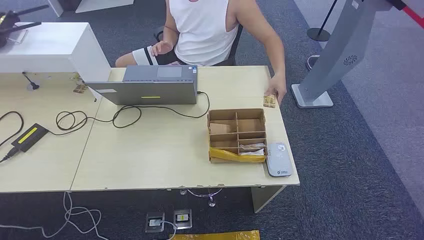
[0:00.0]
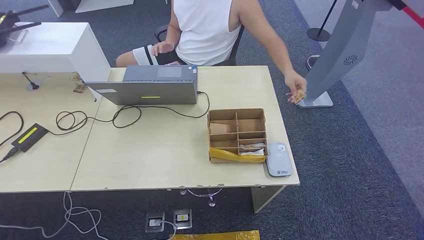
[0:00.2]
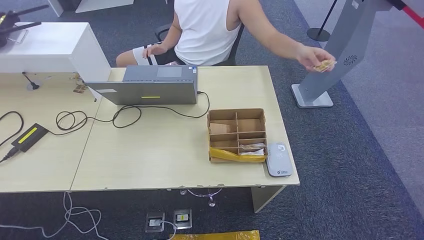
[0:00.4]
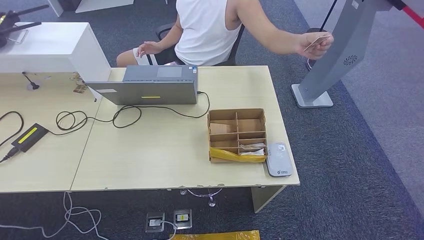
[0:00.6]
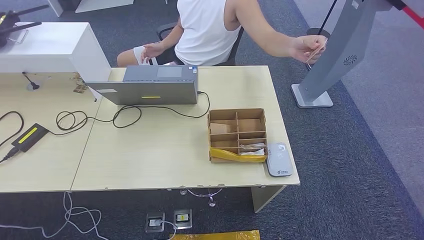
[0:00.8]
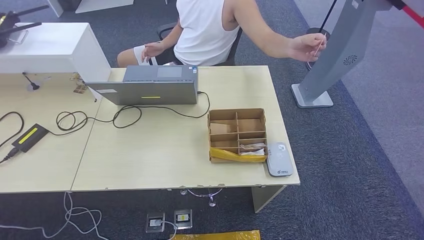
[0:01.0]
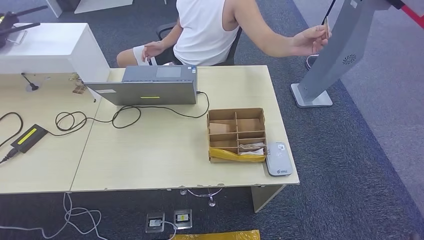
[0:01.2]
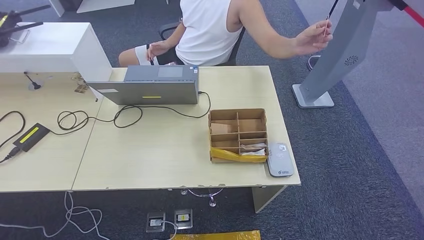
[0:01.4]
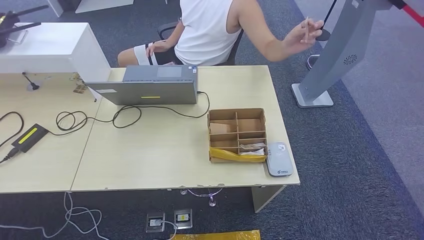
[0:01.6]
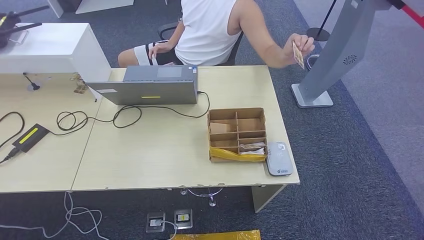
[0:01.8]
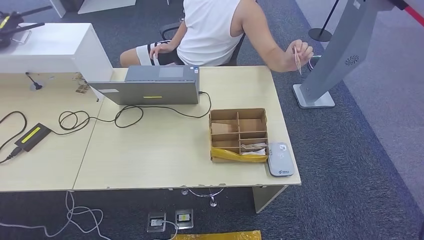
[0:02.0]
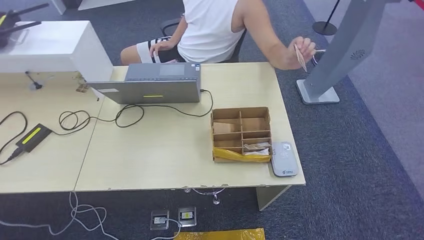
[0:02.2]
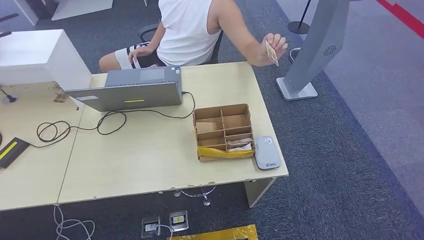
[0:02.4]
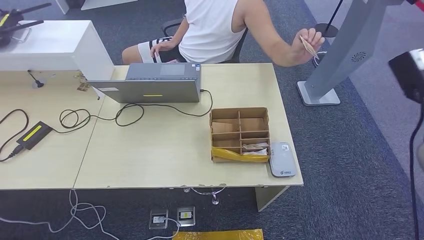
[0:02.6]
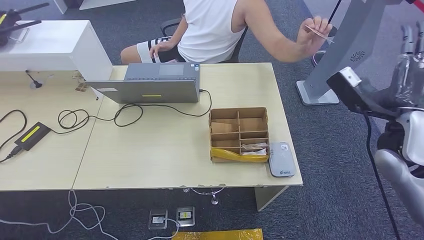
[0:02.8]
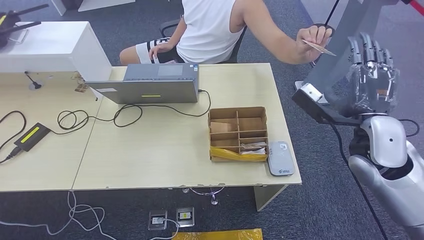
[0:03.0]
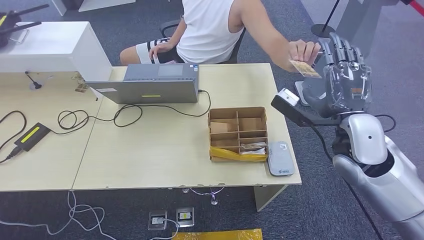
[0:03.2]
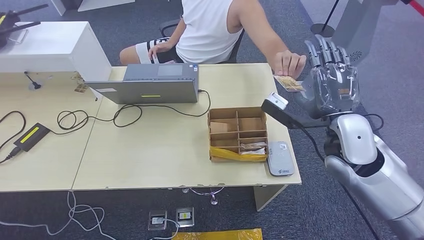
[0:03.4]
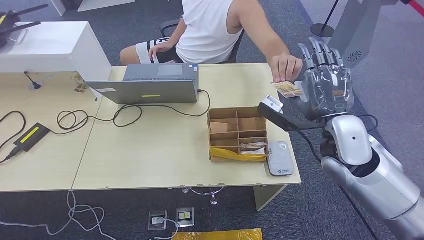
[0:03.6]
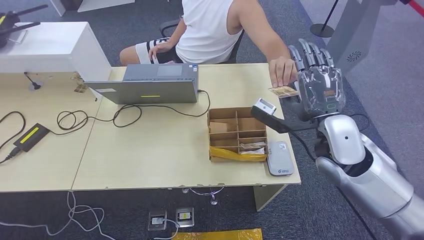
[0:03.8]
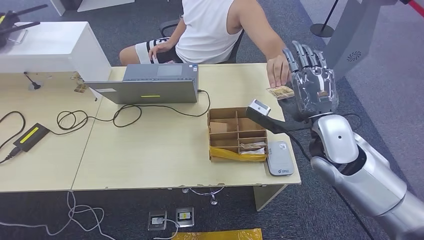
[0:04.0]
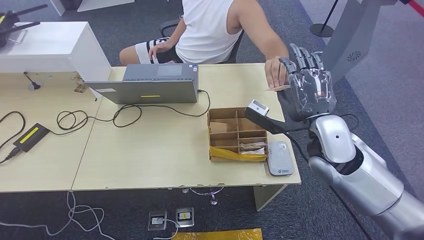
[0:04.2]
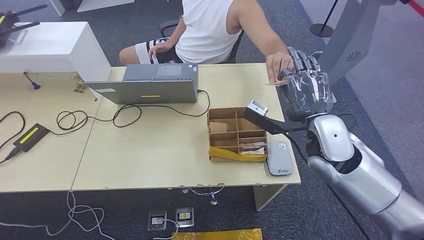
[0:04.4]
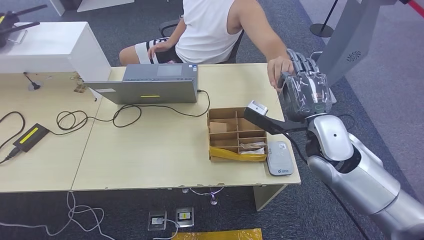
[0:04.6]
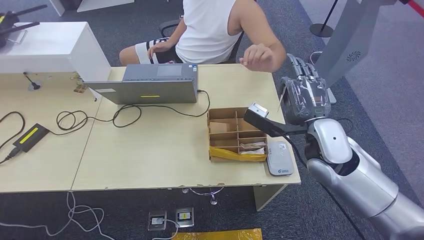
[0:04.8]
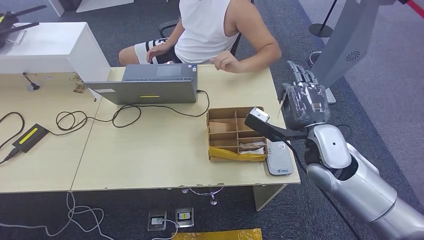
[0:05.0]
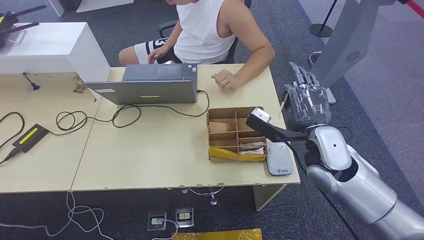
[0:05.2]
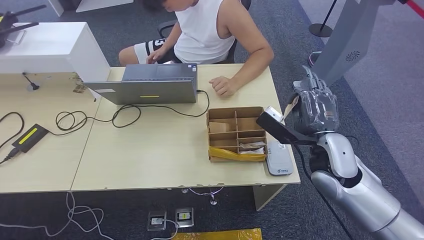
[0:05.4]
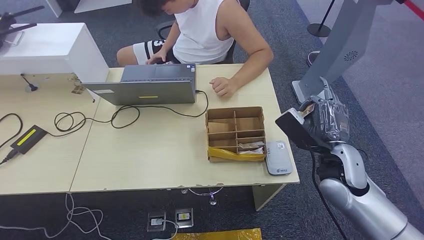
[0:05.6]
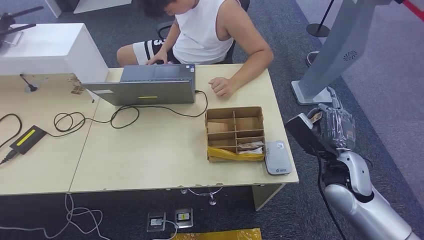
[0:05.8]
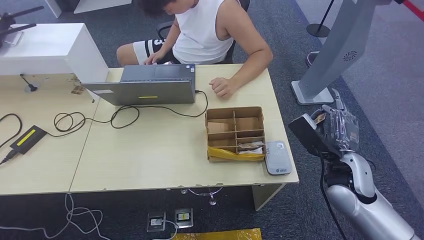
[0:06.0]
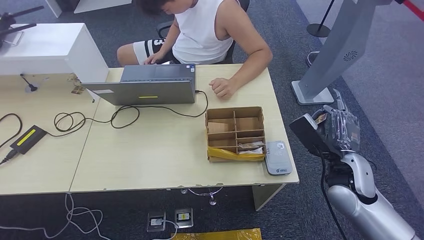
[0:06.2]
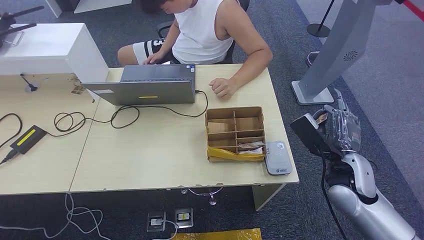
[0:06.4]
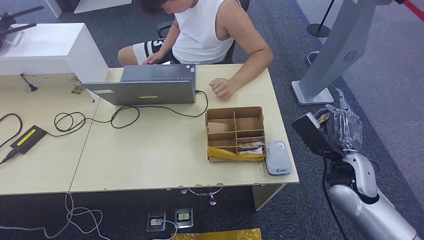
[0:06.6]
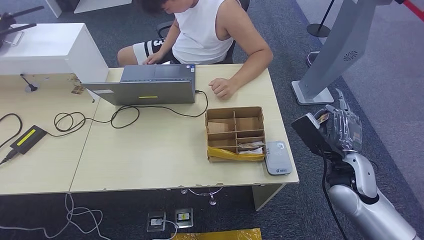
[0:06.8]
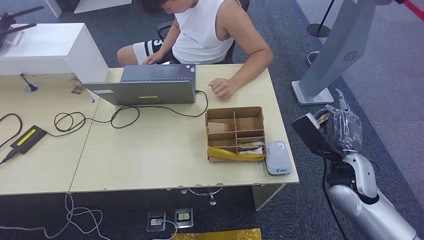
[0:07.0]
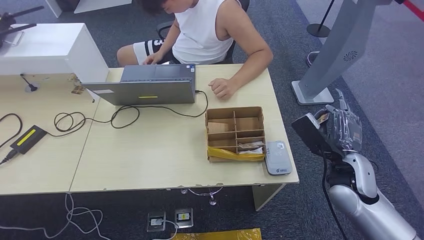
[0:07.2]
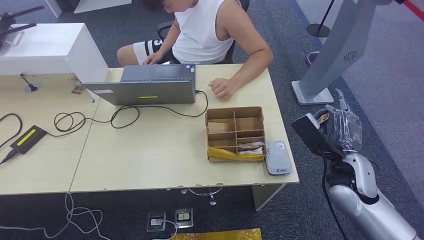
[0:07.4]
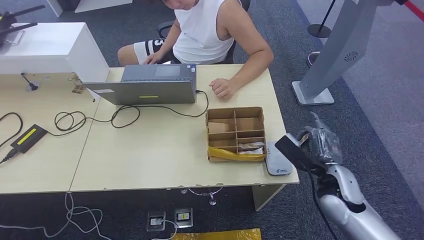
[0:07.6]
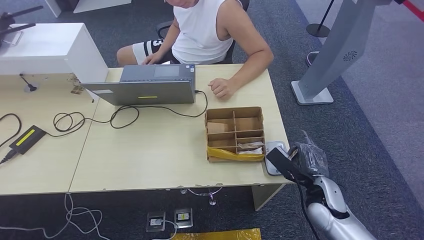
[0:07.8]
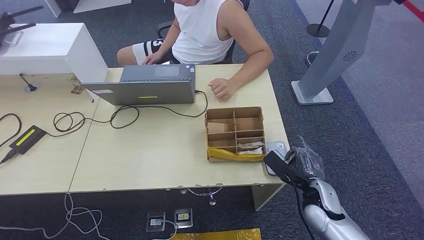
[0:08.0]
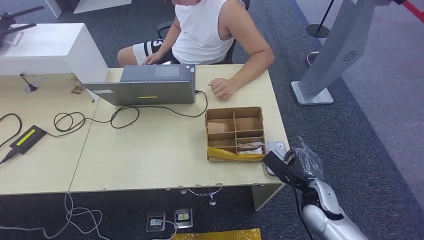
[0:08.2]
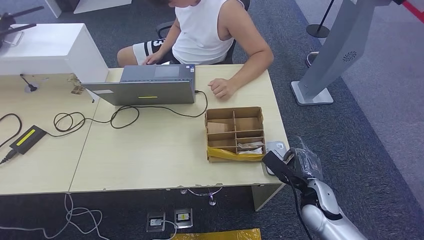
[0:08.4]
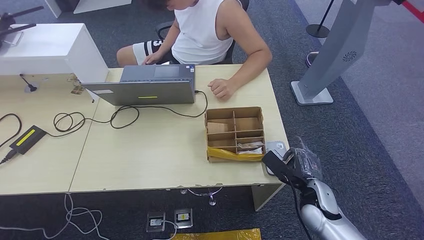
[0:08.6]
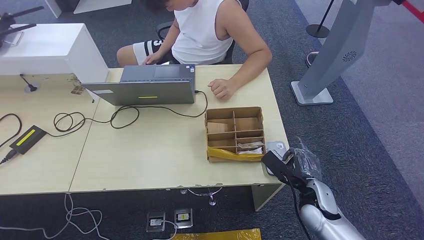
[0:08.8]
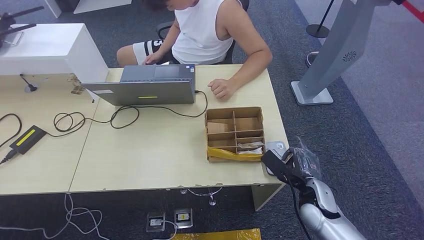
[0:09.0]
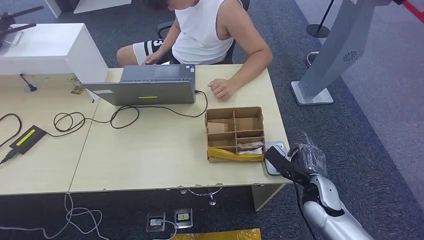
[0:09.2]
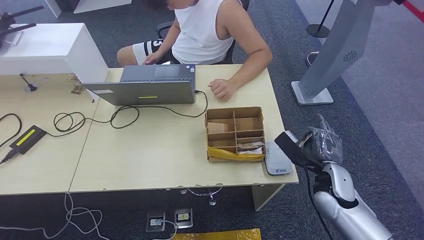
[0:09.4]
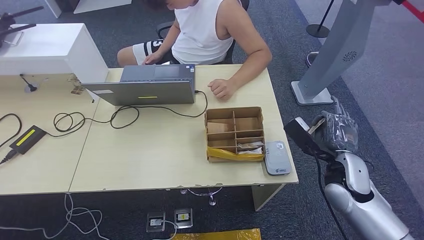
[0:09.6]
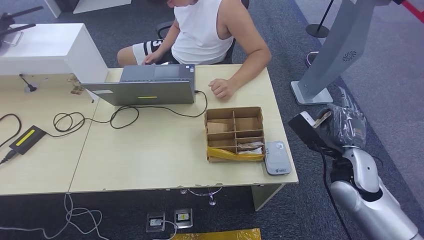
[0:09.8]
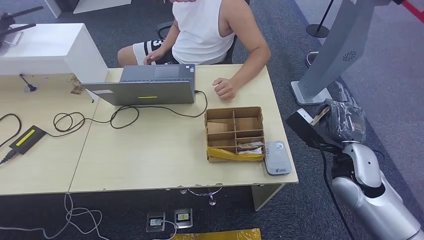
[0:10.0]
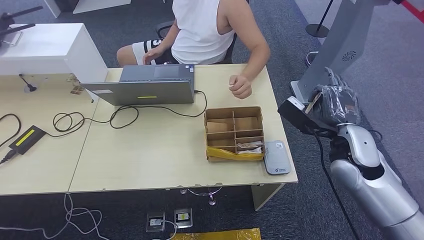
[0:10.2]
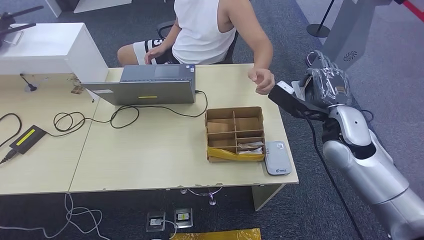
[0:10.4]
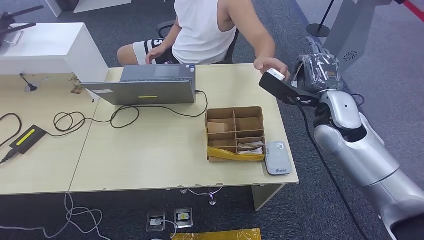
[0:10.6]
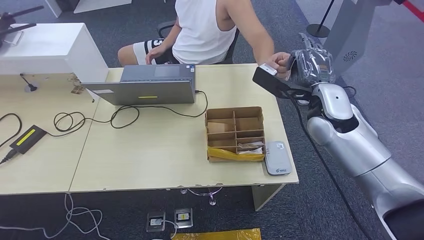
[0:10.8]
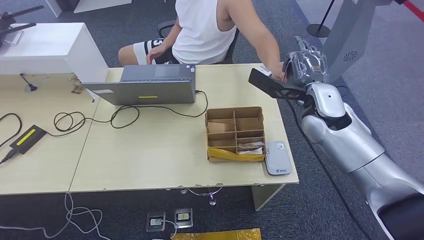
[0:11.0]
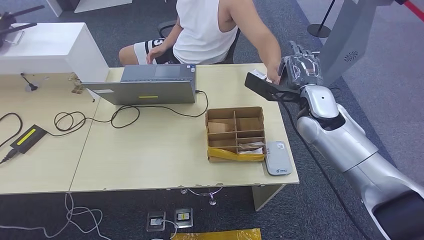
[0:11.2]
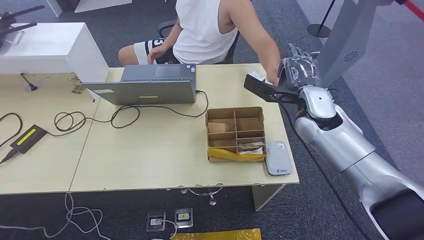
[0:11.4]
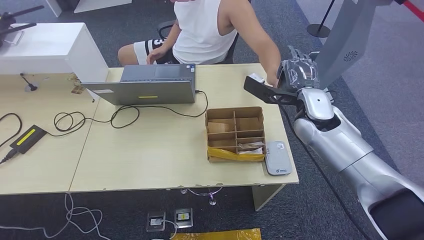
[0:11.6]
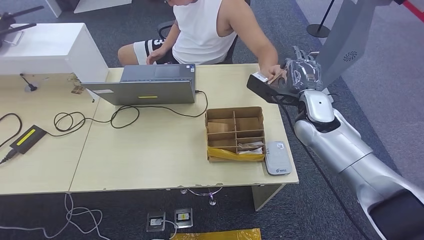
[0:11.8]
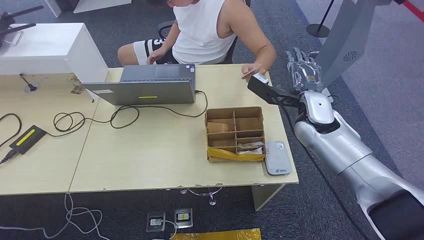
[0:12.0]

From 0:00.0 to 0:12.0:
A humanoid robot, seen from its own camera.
Step, from 0:00.0 to 0:04.6: Take the ID card from the person's hand.
Step, from 0:05.6 to 0:09.2: Place the ID card on the card reader.
From 0:01.6 to 0:03.0: The right hand moves to the left, upward and forward, about 40 cm.
From 0:03.0 to 0:04.4: The right hand is displaced to the left by some 10 cm.
From 0:06.0 to 0:07.6: The hands move only a little.
From 0:07.6 to 0:09.0: The right hand shifts approximately 10 cm downward.
From 0:09.0 to 0:10.4: The right hand travels upward and forward by roughly 20 cm.
From 0:10.4 to 0:12.0: The right hand moves forward and to the left, about 10 cm.

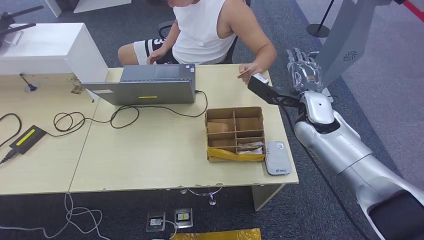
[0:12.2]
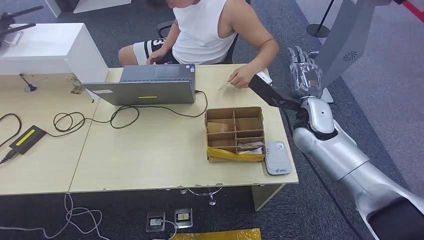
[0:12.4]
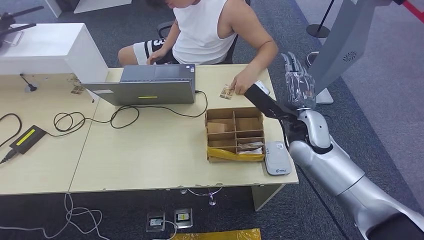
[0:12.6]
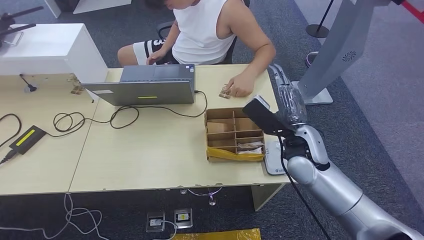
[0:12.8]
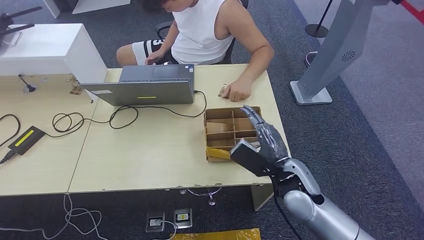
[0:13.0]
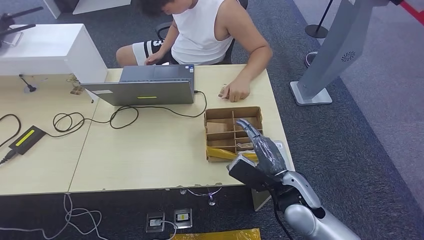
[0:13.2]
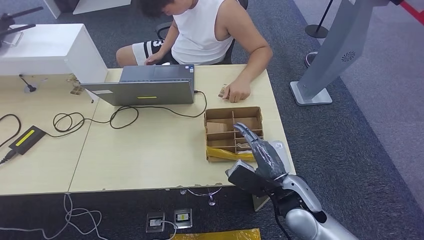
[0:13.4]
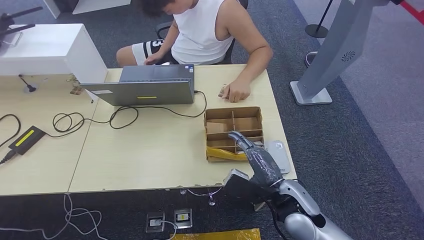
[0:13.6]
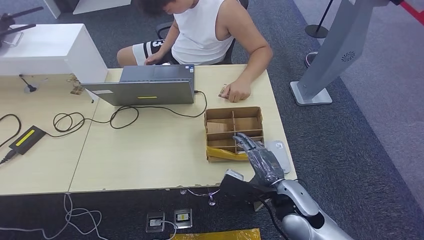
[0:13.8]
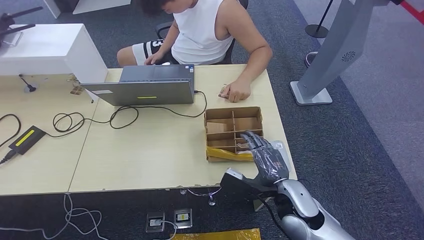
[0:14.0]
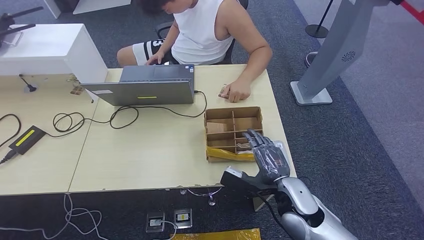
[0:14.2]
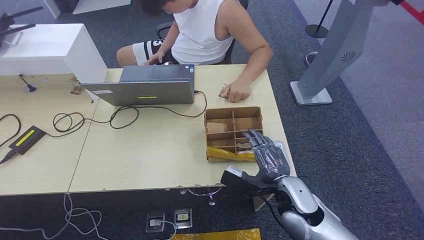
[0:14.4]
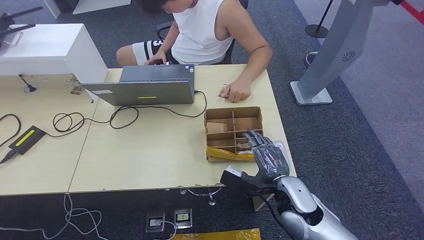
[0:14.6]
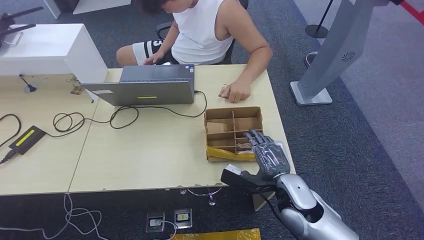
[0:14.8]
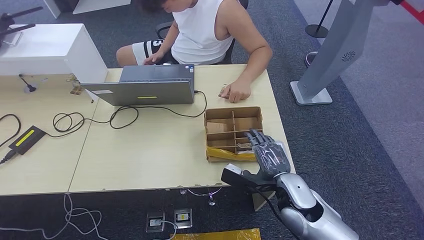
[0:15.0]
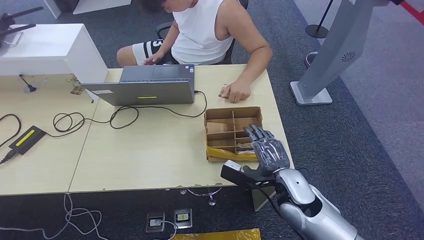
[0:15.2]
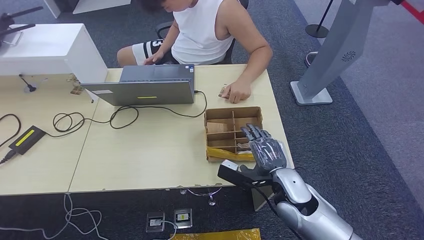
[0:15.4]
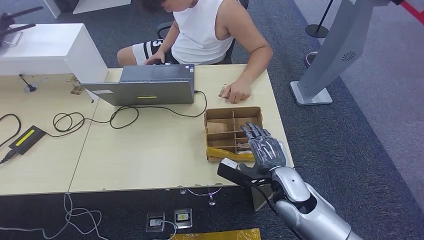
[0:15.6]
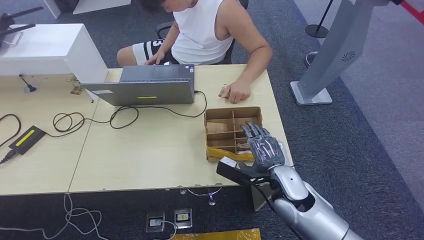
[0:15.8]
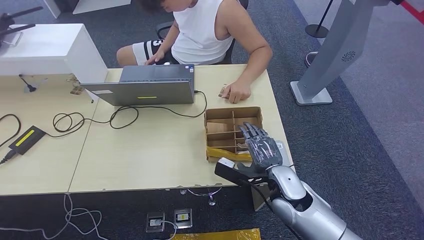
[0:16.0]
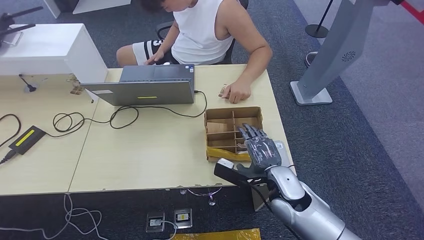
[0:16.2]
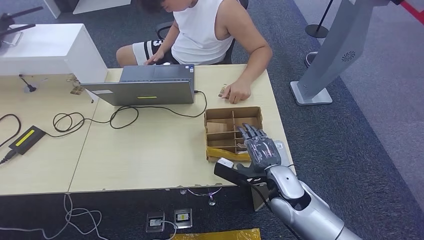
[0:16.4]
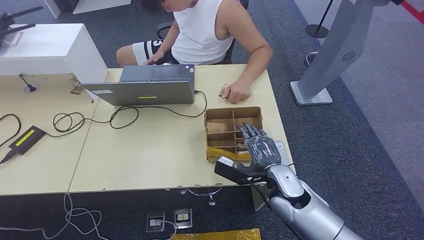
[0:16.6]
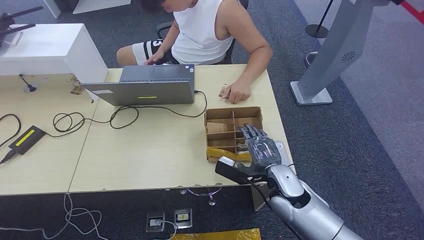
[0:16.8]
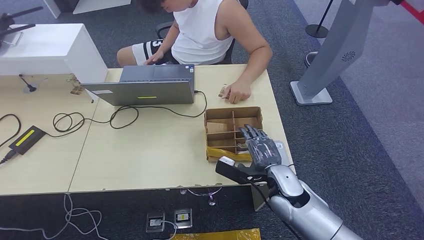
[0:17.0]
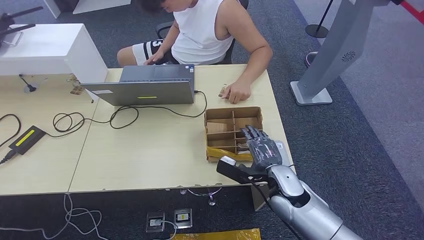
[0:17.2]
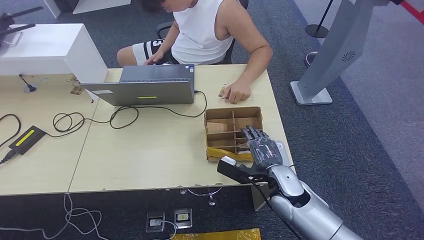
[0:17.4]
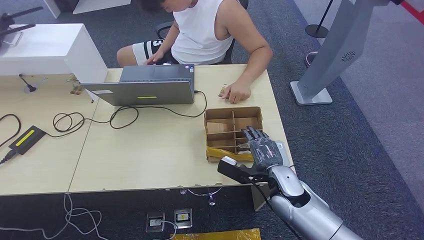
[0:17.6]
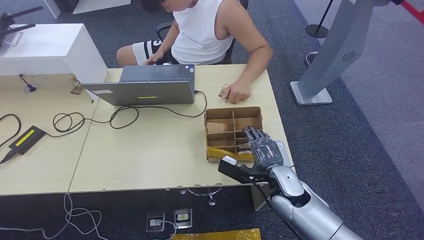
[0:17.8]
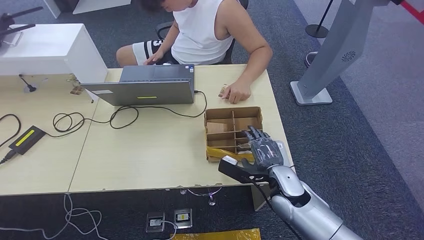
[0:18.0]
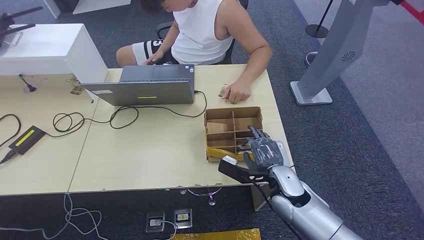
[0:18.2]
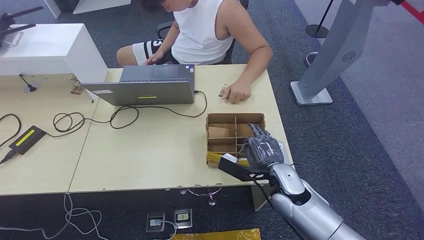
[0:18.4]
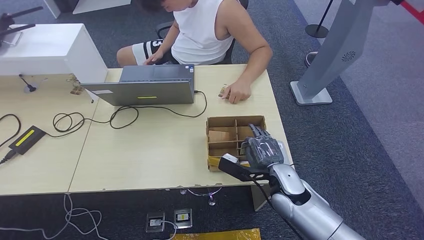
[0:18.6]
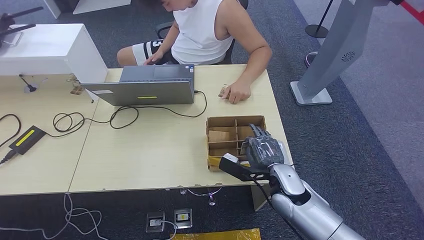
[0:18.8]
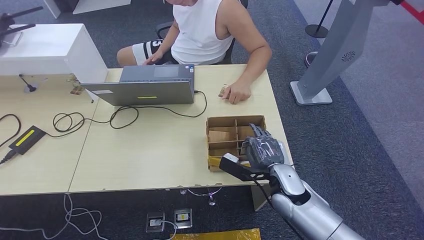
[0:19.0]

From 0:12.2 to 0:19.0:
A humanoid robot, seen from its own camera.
From 0:12.2 to 0:13.6: The right hand goes approximately 20 cm backward and downward.
From 0:15.0 to 0:17.6: The hands make only small movements.
From 0:17.6 to 0:19.0: The two hands keep their place.
